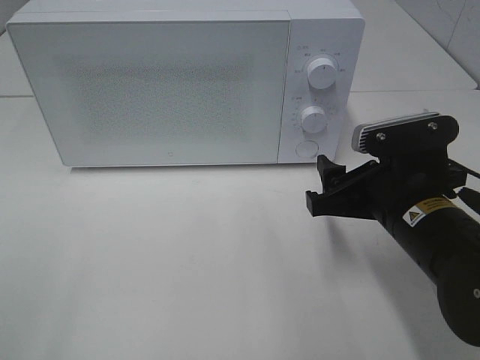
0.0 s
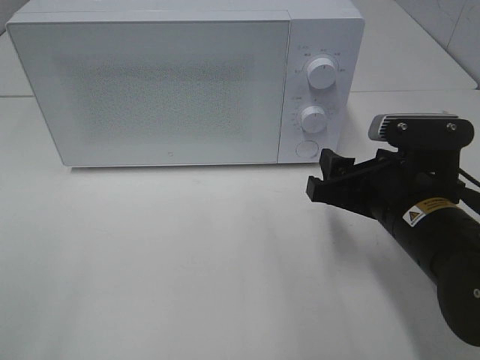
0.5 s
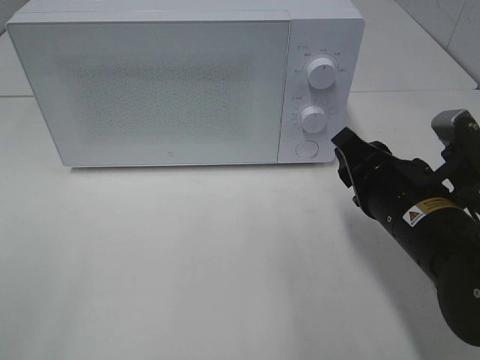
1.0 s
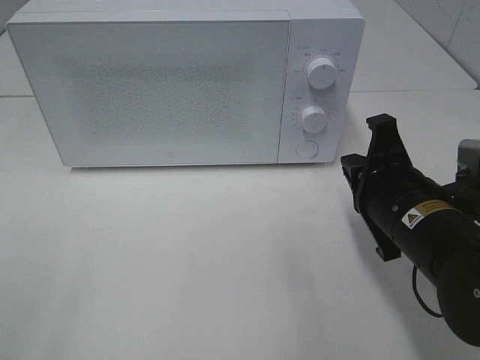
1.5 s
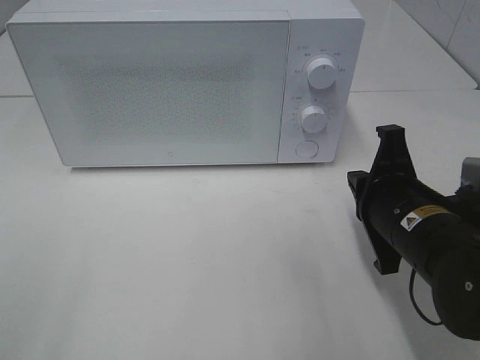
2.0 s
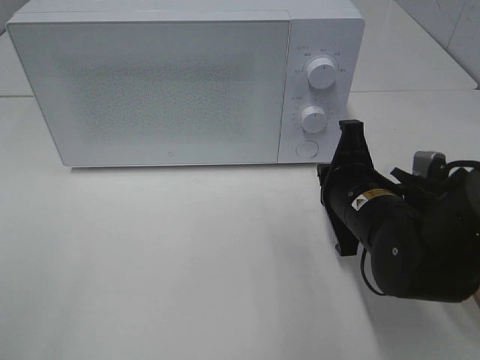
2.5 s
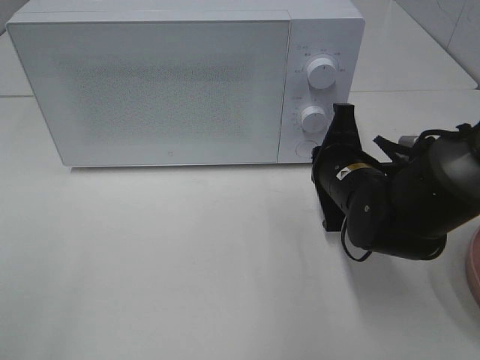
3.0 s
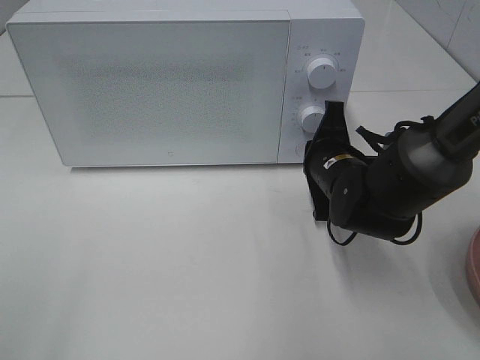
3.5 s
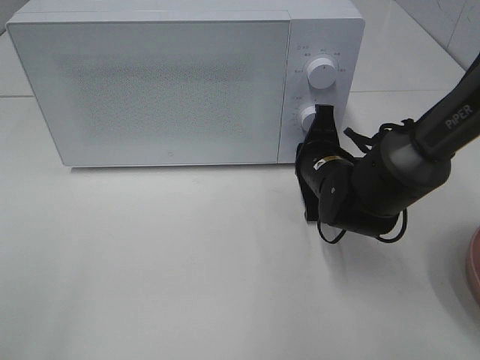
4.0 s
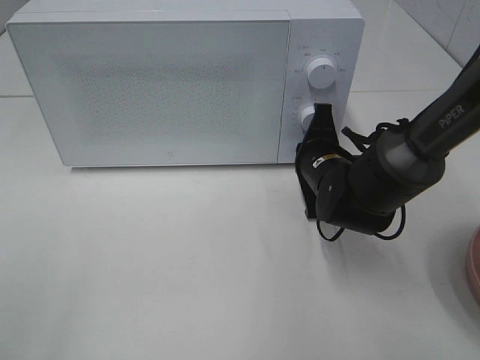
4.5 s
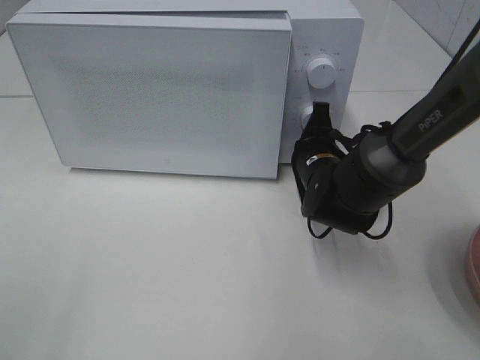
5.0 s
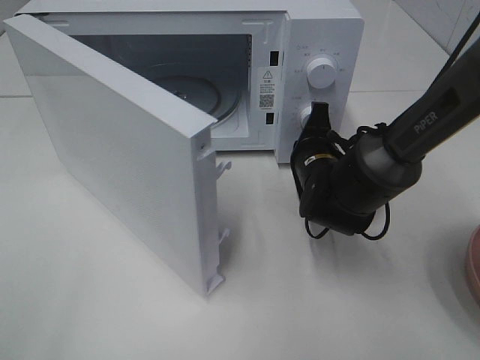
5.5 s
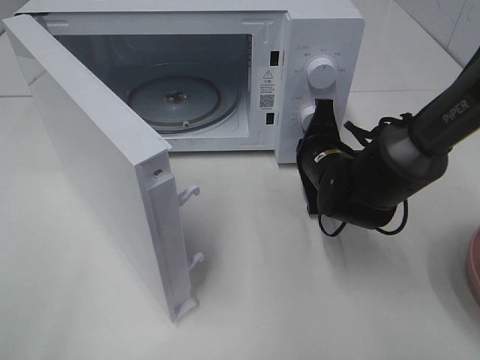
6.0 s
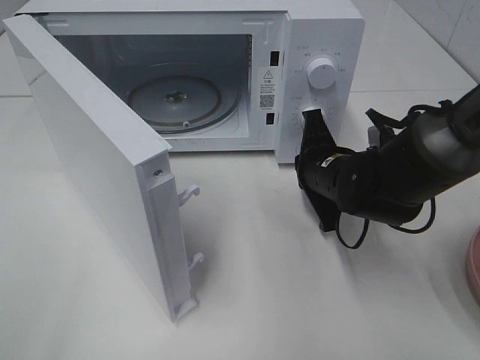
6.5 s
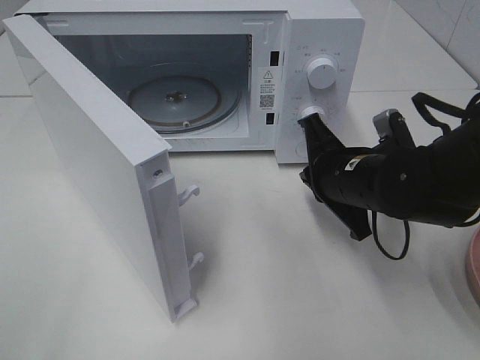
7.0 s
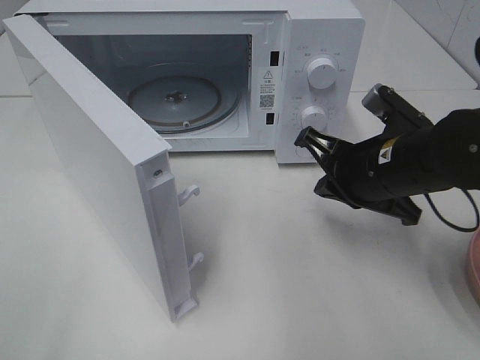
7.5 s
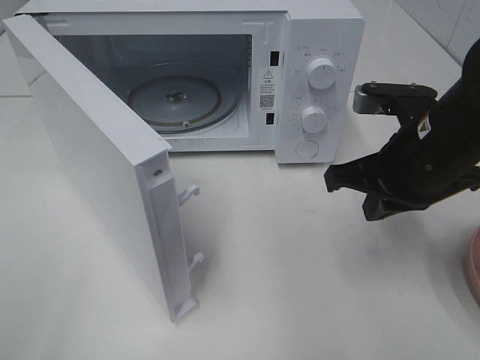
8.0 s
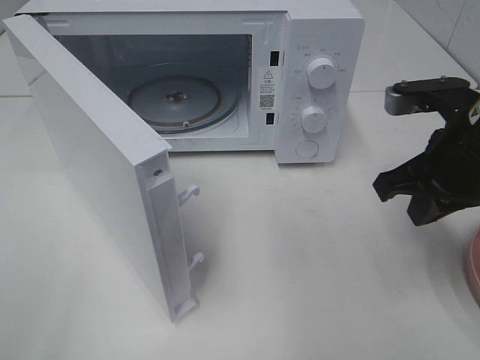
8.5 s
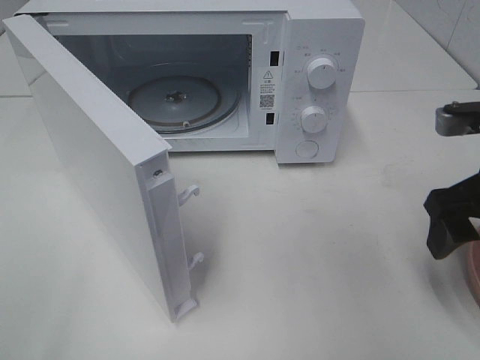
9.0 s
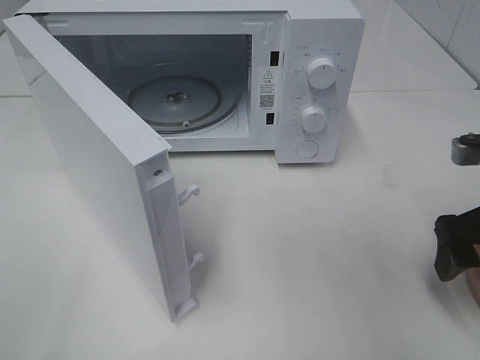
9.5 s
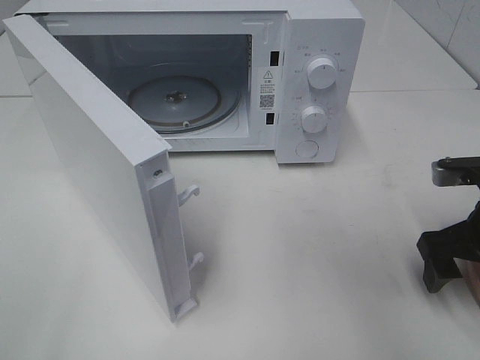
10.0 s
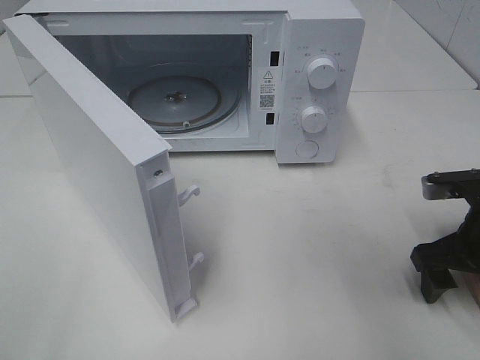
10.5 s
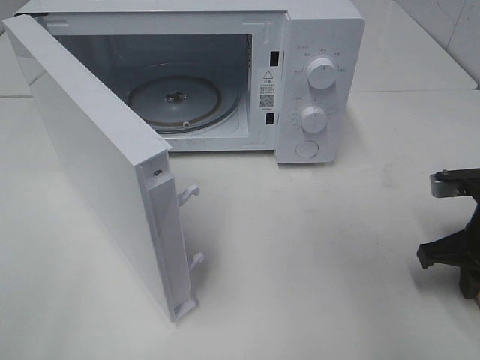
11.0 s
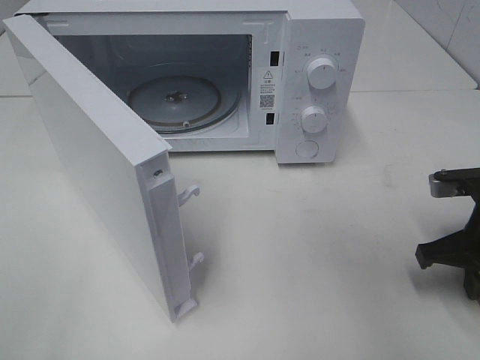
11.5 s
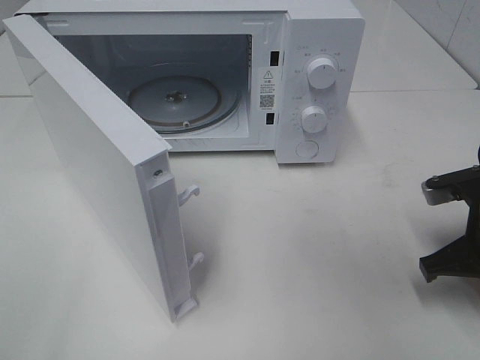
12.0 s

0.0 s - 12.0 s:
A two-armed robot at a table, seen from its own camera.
Task of the whole recording: Heat the burger.
Step, 0.0 s - 6.5 s: Right hand: press the switch.
Step, 7.0 s - 11.5 s: Right hand: grab the plate with the hamburger.
0.0 s - 2.0 s: The right gripper closes.
2.0 s - 4.0 s: The right gripper shifts about 10 cm forward.
6.0 s - 8.0 s: The right gripper shifts about 15 cm upward, backward and to the right.
8.0 s - 10.0 s: The right gripper moves to the right and downward, some 10 cm, and opens its fingers.
10.0 s - 12.0 s: The right gripper closes.

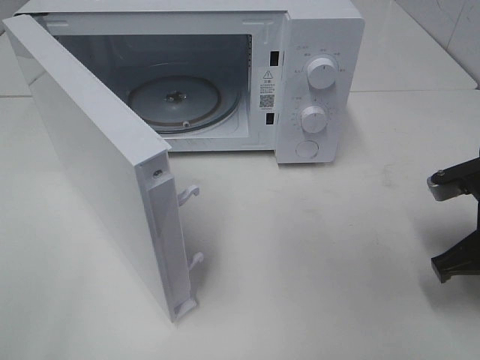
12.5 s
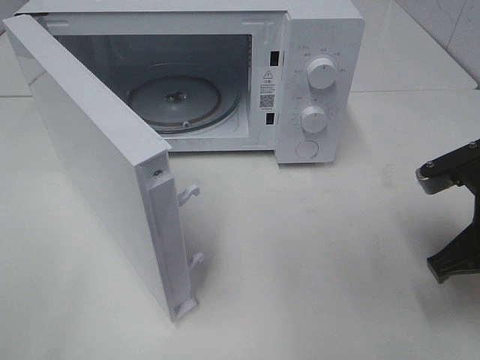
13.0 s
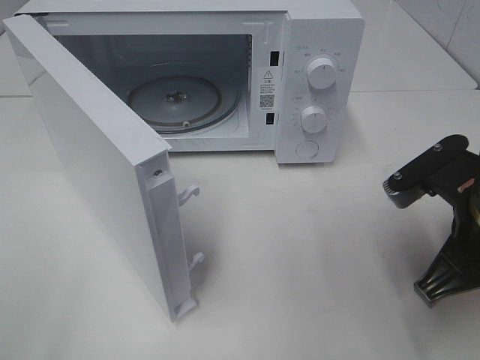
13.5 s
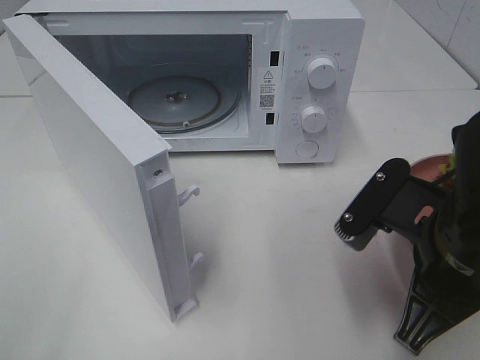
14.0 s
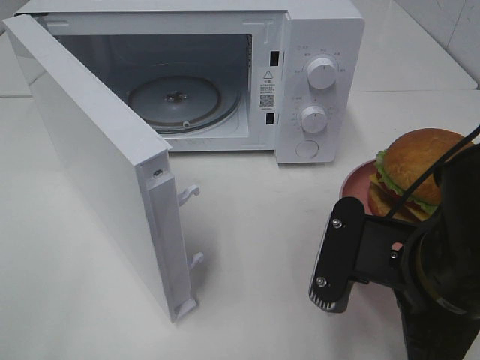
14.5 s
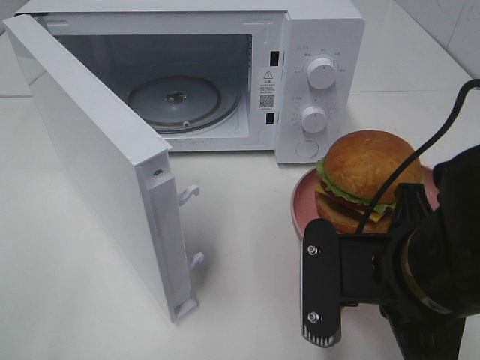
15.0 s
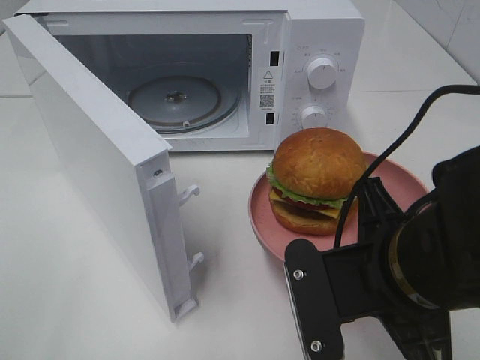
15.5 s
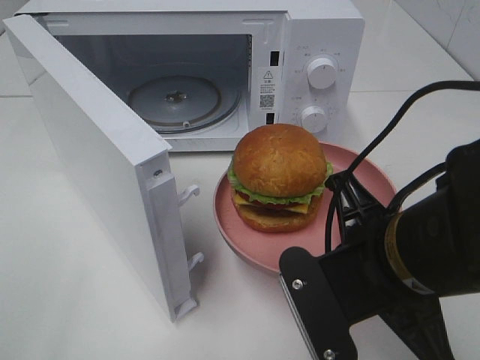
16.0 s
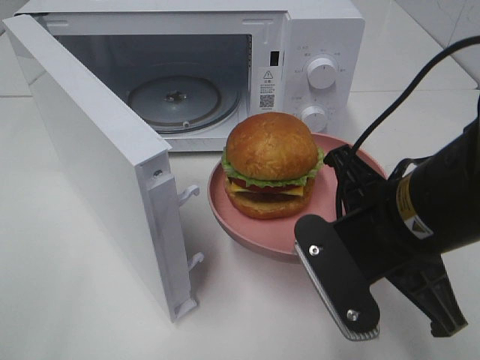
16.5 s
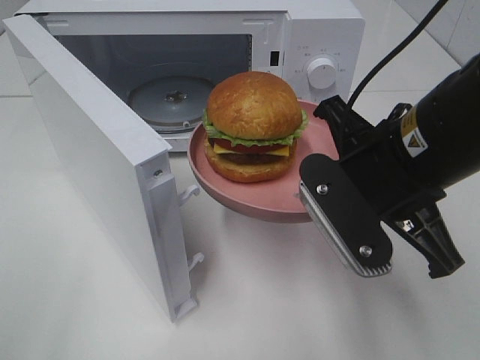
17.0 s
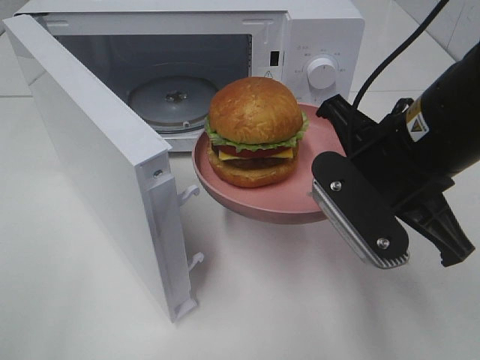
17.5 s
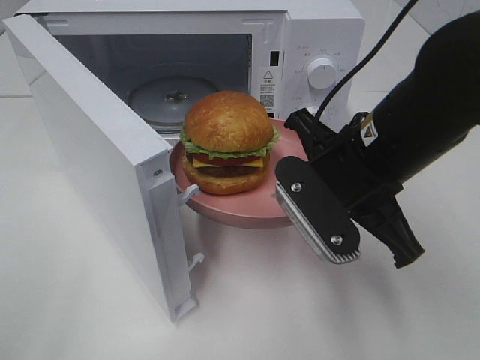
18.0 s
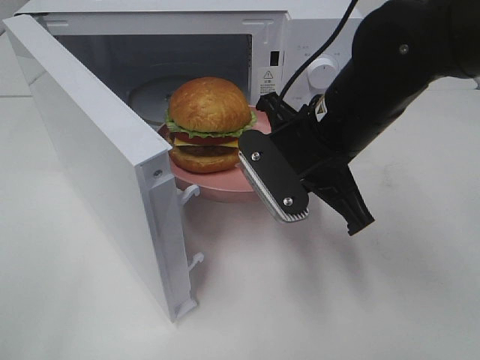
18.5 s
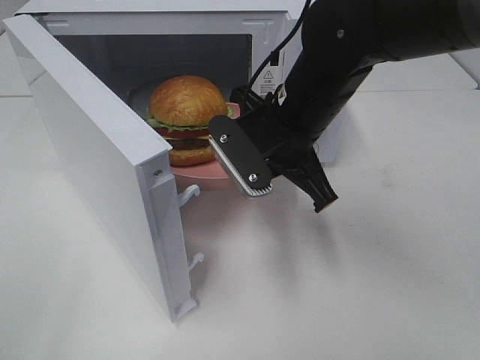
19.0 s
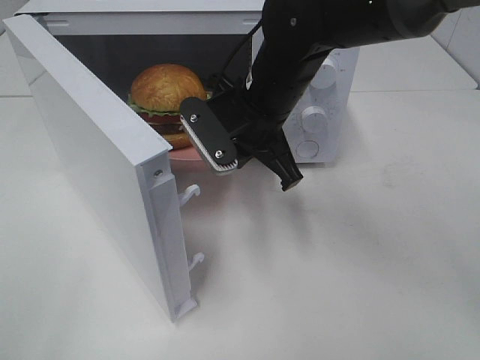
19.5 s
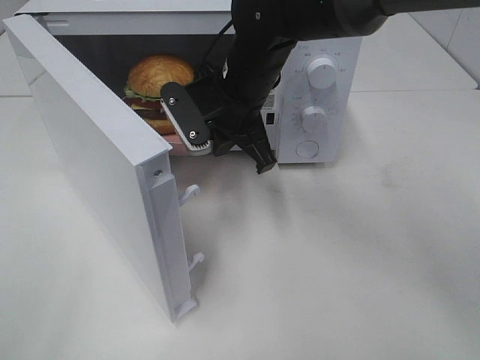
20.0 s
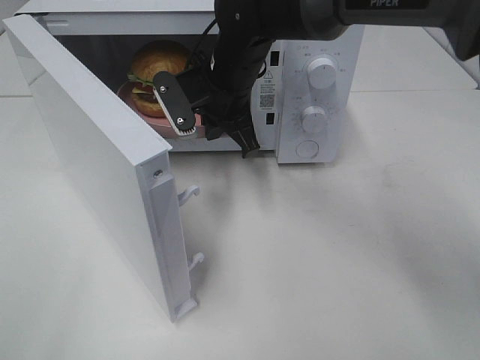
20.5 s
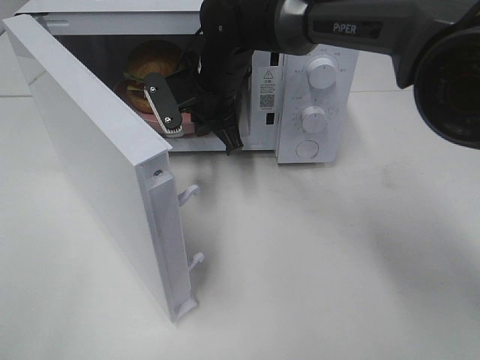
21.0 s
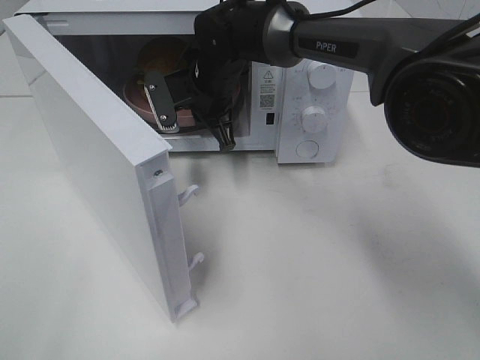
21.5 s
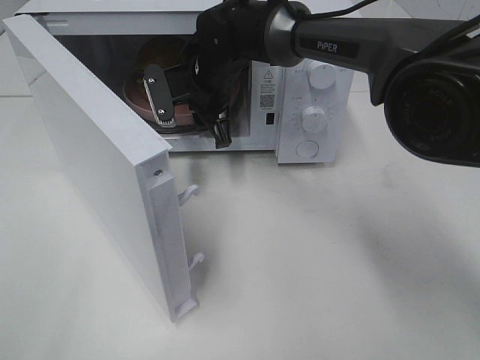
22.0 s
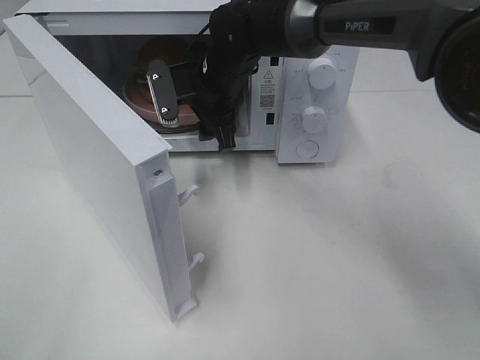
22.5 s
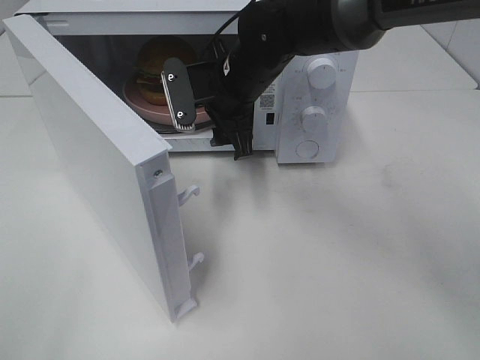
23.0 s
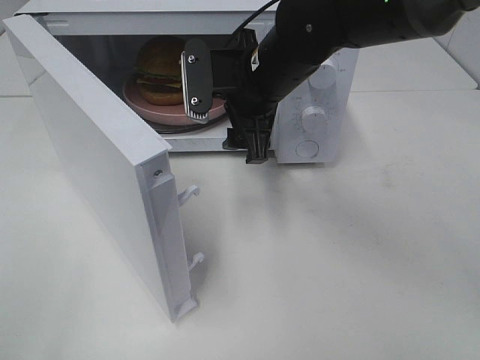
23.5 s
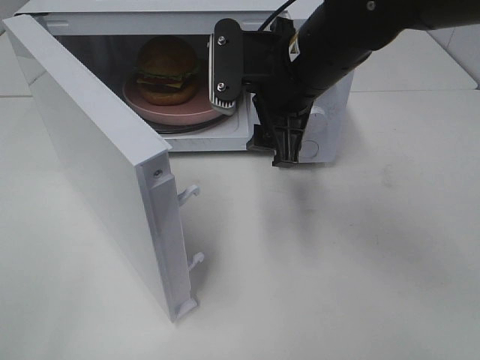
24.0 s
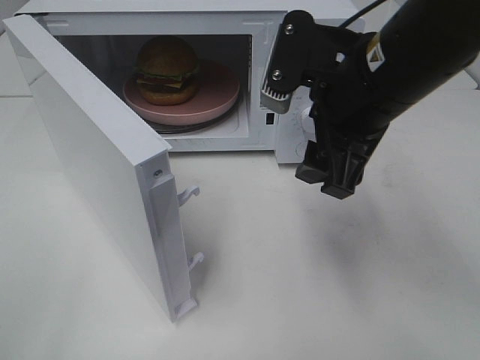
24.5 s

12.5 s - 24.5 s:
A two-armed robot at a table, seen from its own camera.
Task of the whole recording: Heat the burger.
Step, 12.5 s - 22.5 s: Right hand: place the plate in the microwave.
12.5 s - 14.5 s: The right gripper travels to the left and backward by about 15 cm.
16.5 s - 18.5 s: The right gripper moves forward, some 10 cm.
18.5 s - 20.5 s: The right gripper is displaced forward and to the left by roughly 15 cm.
20.5 s - 22.5 s: The right gripper opens.
22.5 s - 24.5 s: The right gripper goes some 25 cm backward, to the right and upward.

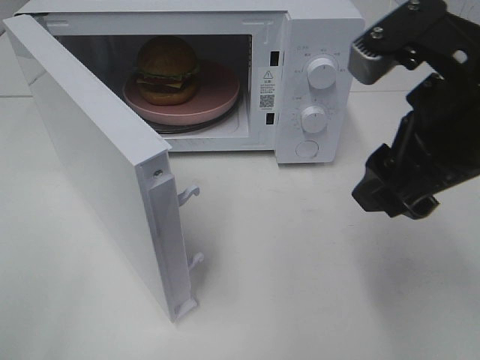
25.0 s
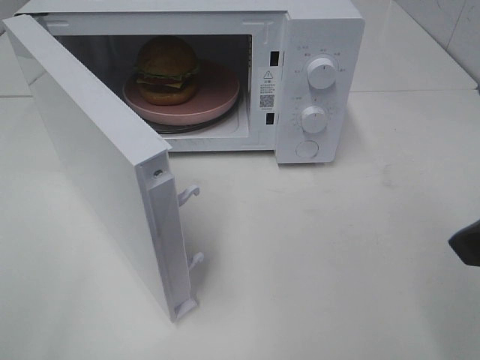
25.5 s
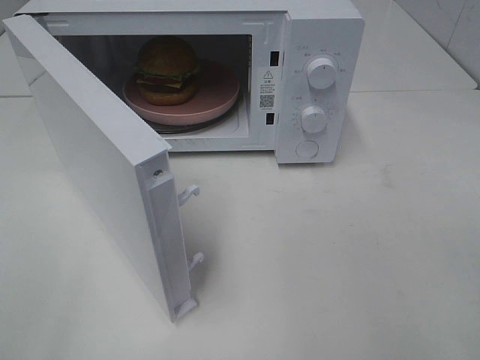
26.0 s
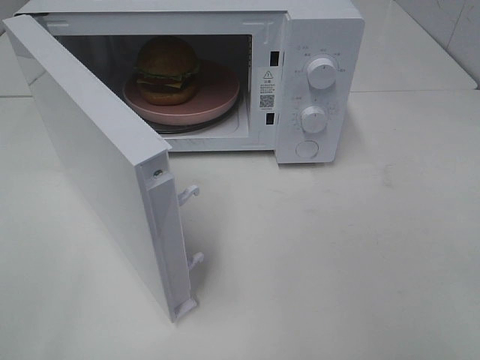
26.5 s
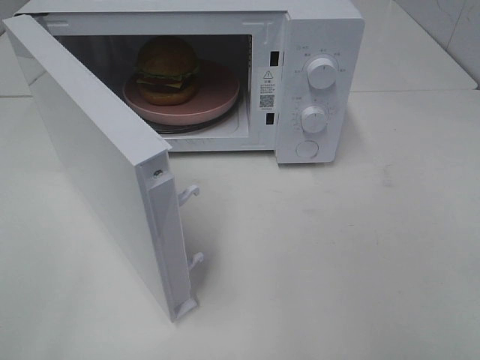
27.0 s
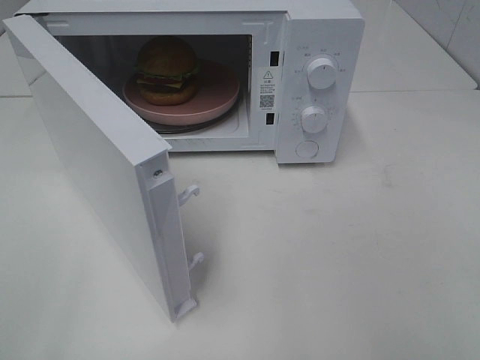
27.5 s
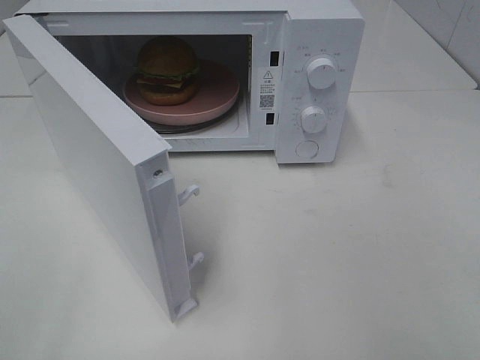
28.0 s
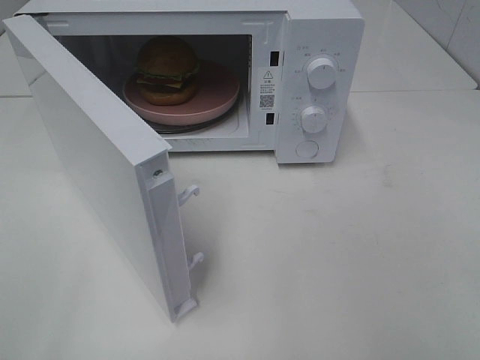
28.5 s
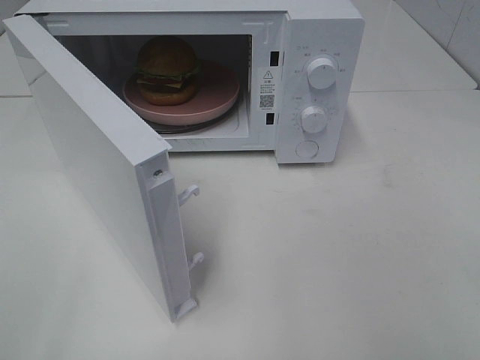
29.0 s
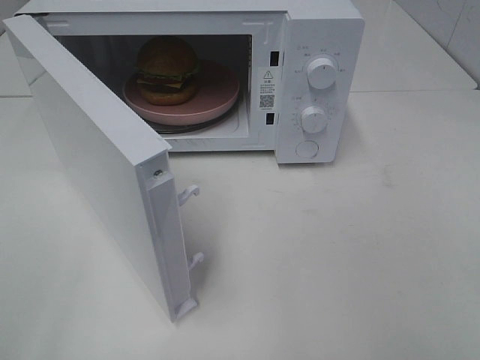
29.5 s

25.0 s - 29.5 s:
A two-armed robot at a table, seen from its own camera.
Task of the whole recording: Heat the burger.
25.0 s - 27.0 s: The right gripper travels backward and to the right by about 20 cm.
